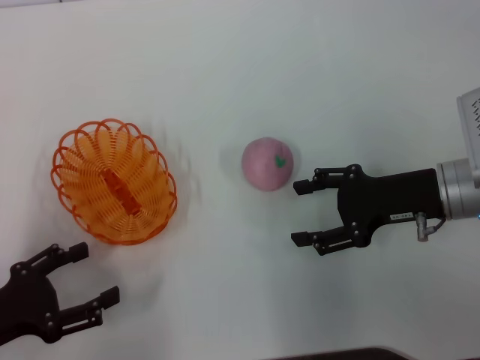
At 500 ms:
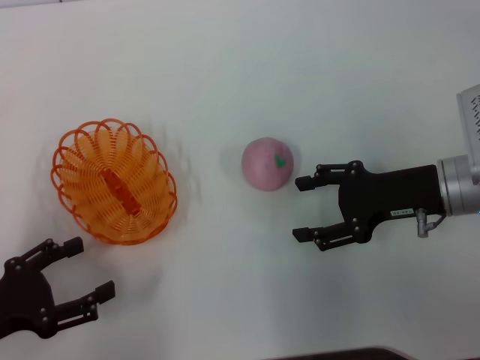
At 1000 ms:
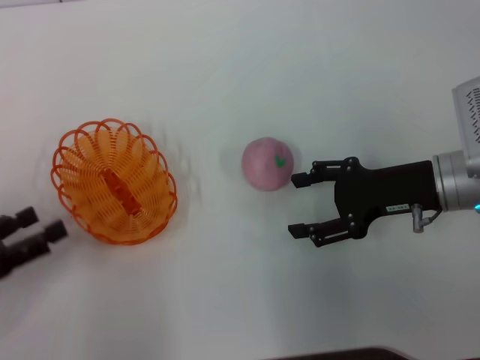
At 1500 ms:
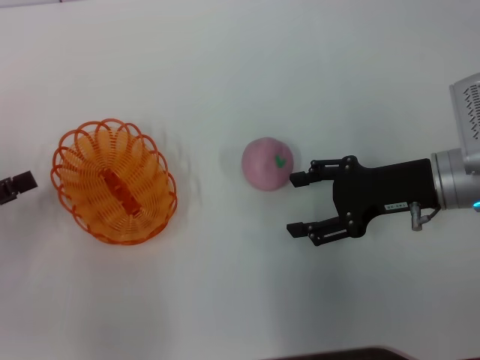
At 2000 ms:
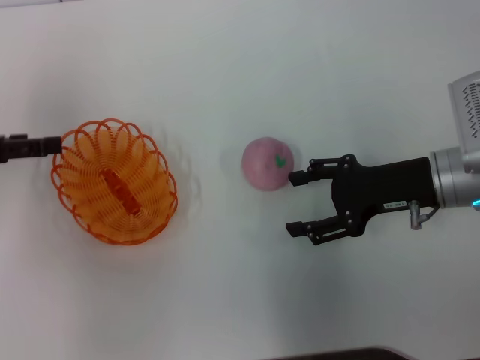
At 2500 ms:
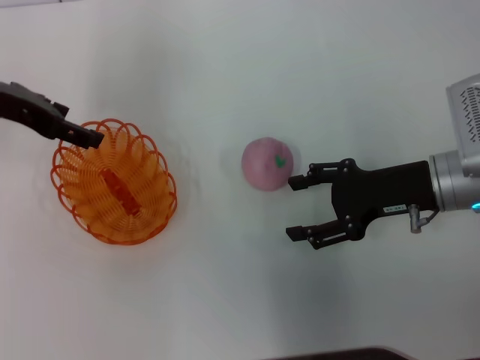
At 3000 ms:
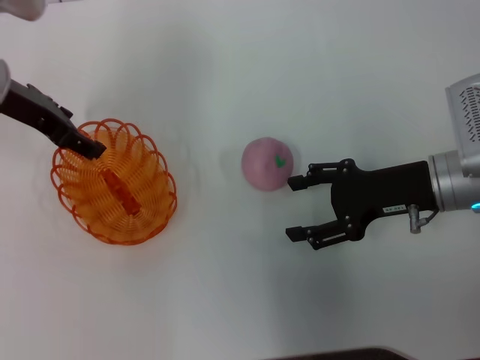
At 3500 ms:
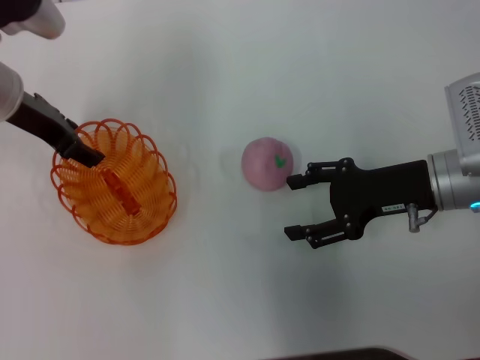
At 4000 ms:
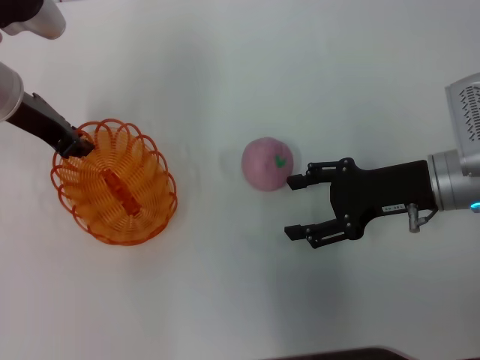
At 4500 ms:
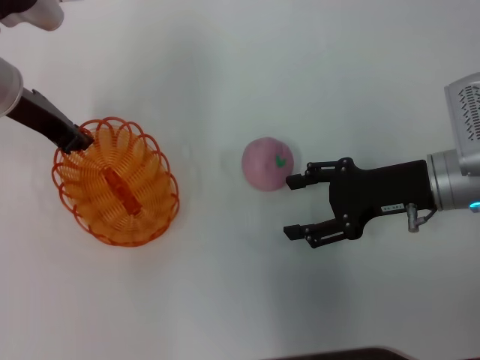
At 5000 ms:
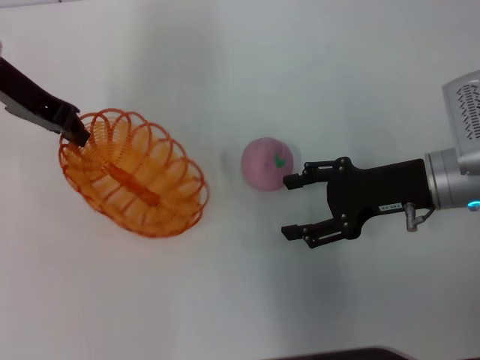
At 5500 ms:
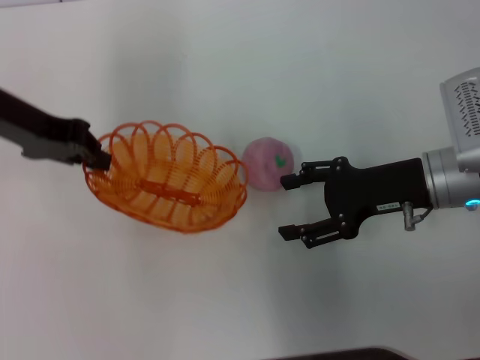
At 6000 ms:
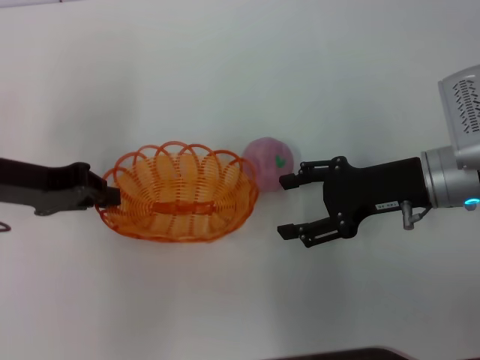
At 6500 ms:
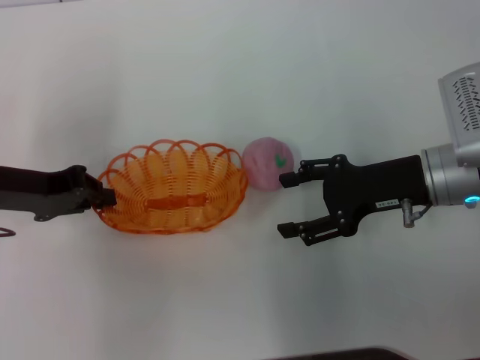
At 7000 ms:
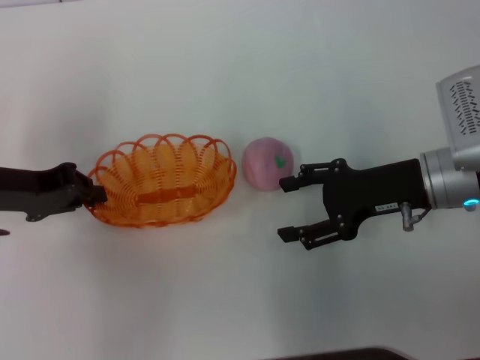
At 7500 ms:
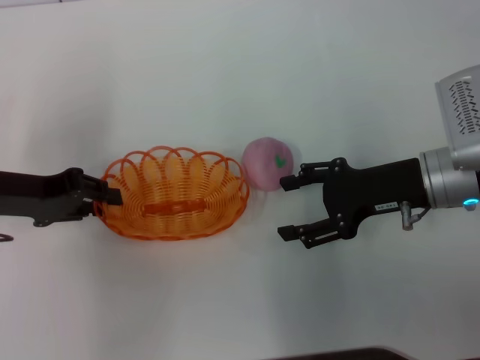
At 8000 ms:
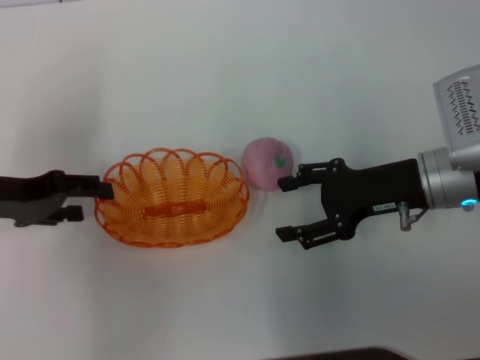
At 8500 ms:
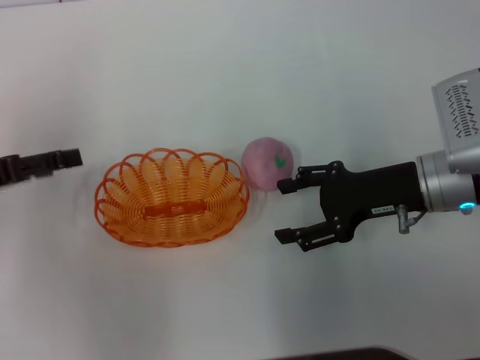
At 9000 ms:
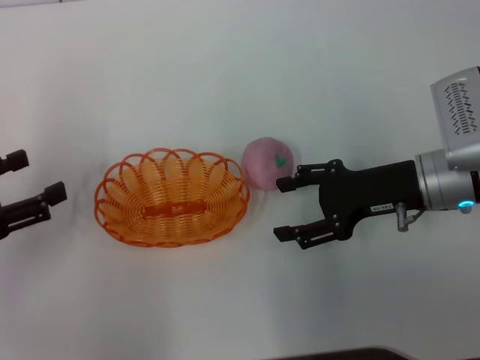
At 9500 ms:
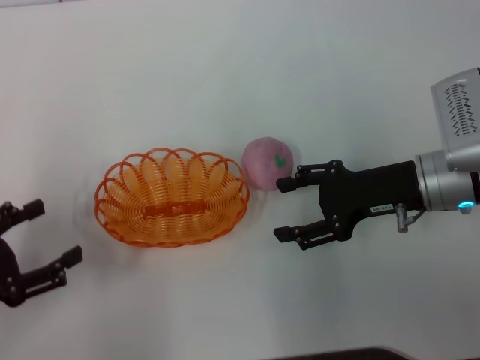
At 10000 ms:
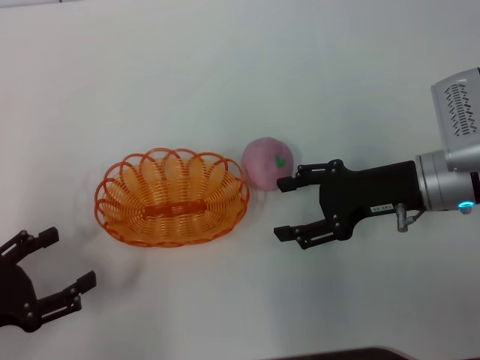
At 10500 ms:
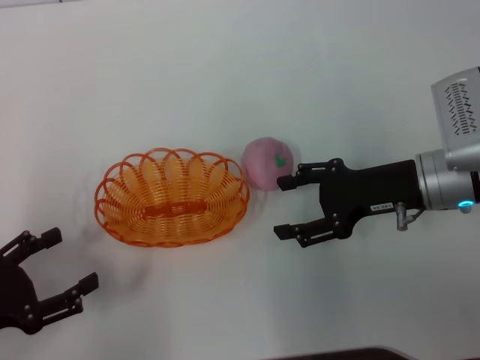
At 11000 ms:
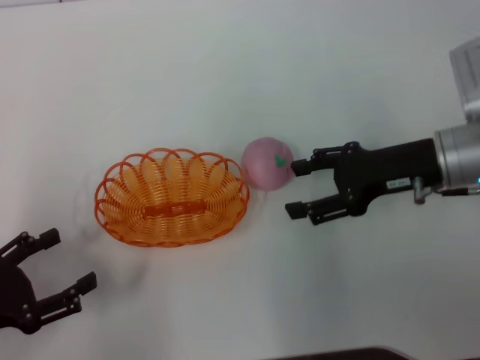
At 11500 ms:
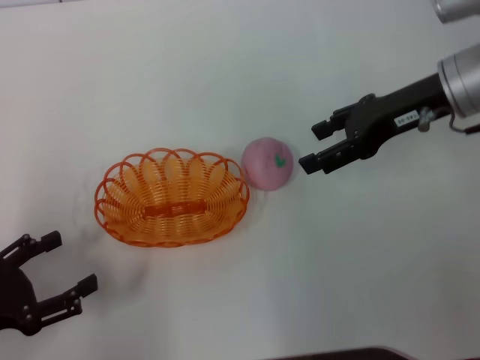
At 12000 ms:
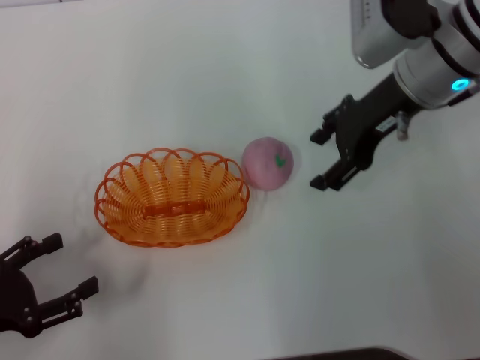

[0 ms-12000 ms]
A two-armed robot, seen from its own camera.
Step, 0 ms to 5000 ms: Pick up the basket with the left gripper.
Step, 5500 ms to 10000 ms: Place the basket in the center of view with the left gripper.
0 ms to 2000 ms: The left gripper shifts some 20 cm forward and upward.
2000 ms to 4000 ms: The left gripper travels to the right and forward by about 15 cm, and closes its fingers.
4000 ms to 6000 ms: The left gripper is displaced backward by about 10 cm, and closes up.
6000 ms to 8000 ms: The left gripper opens its fingers.
8000 ms to 10000 ms: The left gripper moves backward and downward, about 15 cm.
10000 ms to 12000 ms: The right gripper heads upward and forward, covering some 15 cm.

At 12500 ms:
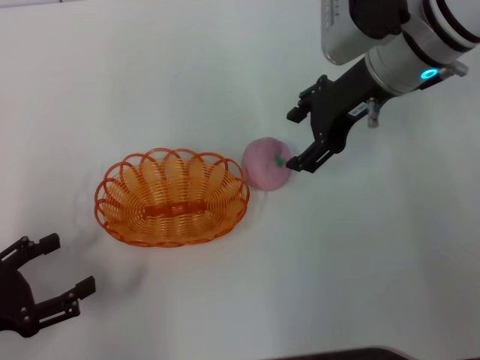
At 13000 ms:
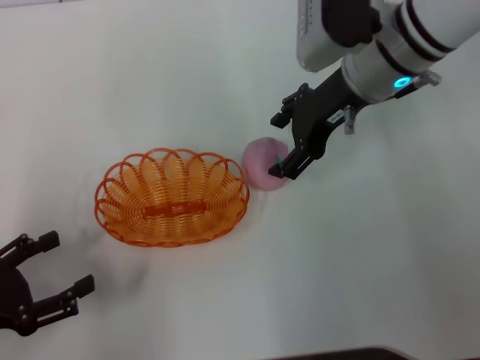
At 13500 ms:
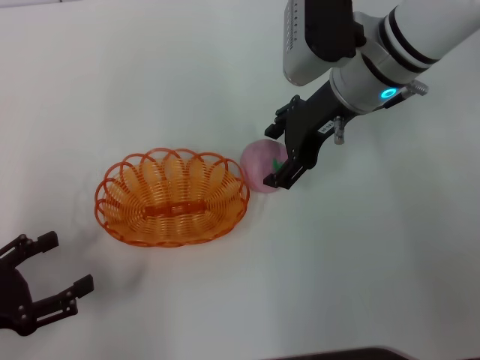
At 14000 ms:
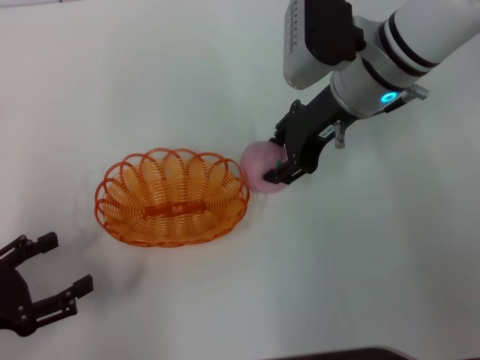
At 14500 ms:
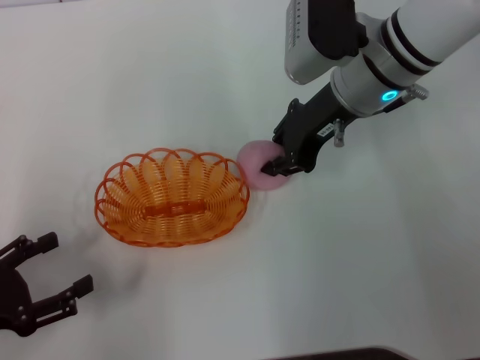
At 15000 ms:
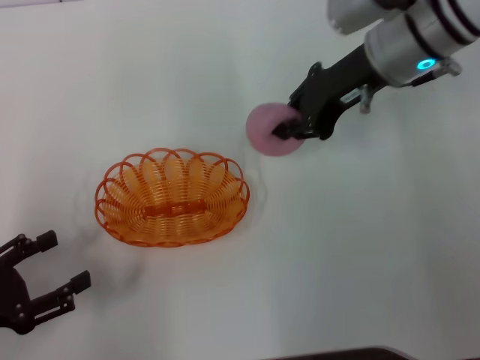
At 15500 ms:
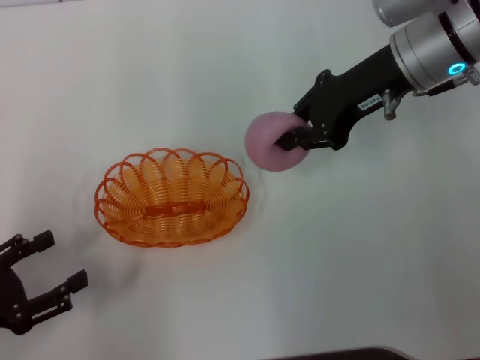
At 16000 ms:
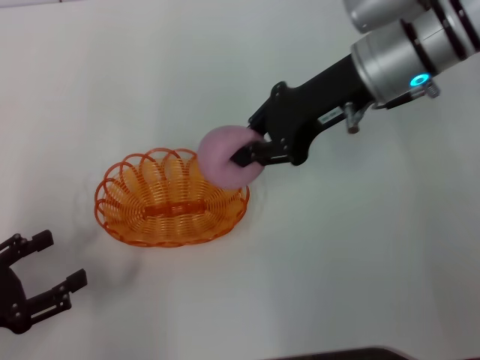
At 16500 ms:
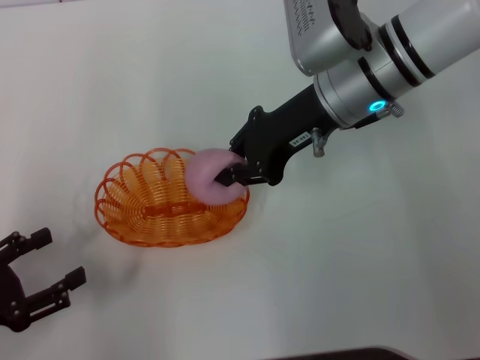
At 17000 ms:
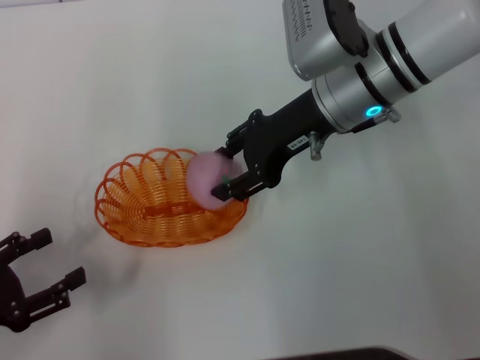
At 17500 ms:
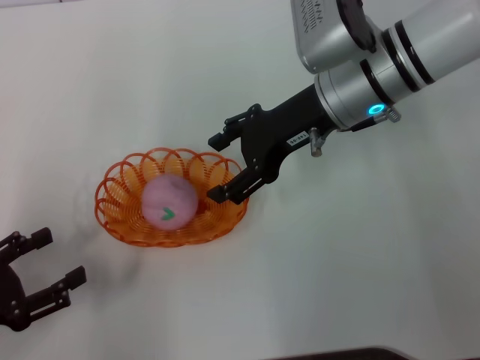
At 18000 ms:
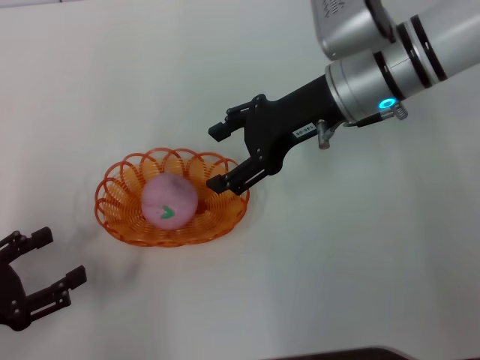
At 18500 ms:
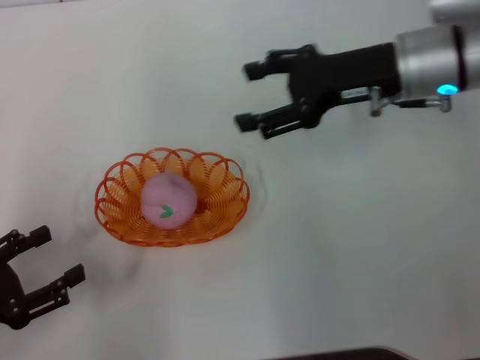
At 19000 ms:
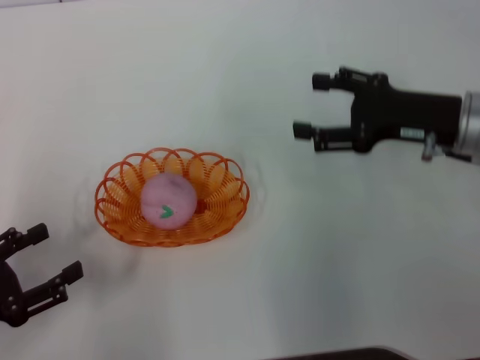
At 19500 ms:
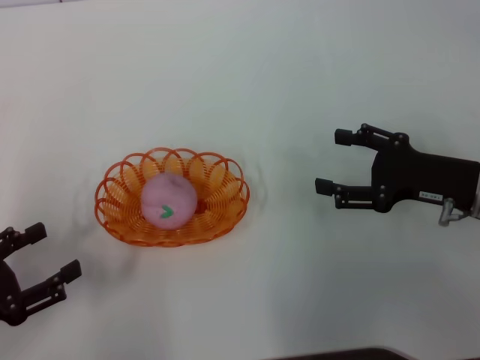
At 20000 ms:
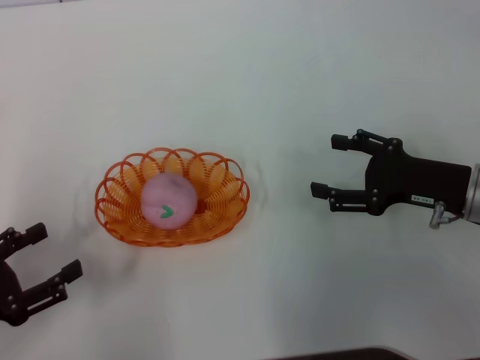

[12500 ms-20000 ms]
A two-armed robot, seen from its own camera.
Step, 12500 ms to 15000 ms: Pick up the peach with the right gripper.
Step, 15500 ms to 18500 ms: Place the peach into the basket with the right gripper.
12500 ms to 14500 ms: The right gripper closes.
16500 ms to 18000 ms: The right gripper opens.
18000 ms to 20000 ms: The right gripper moves to the right, backward and downward, roughly 20 cm.

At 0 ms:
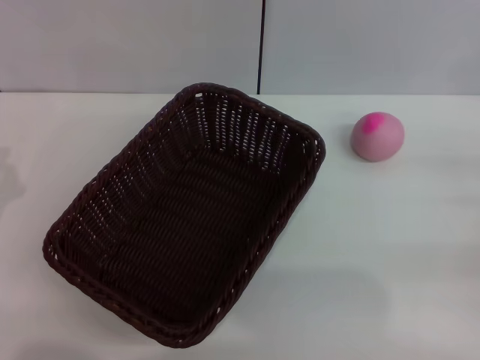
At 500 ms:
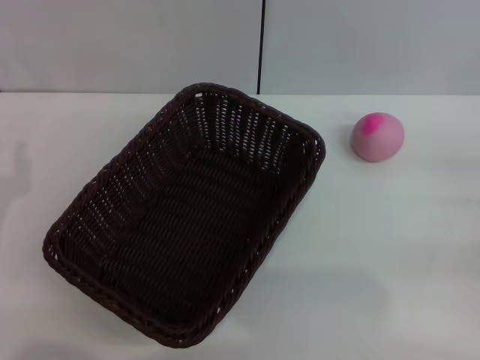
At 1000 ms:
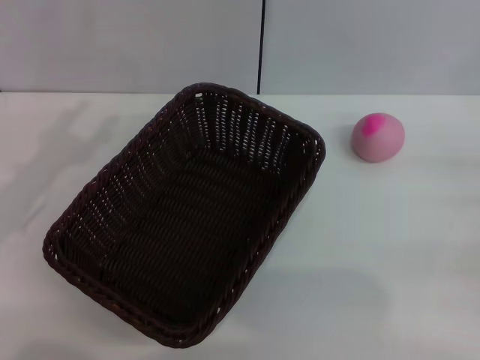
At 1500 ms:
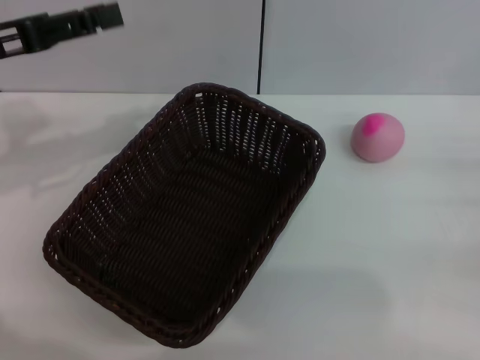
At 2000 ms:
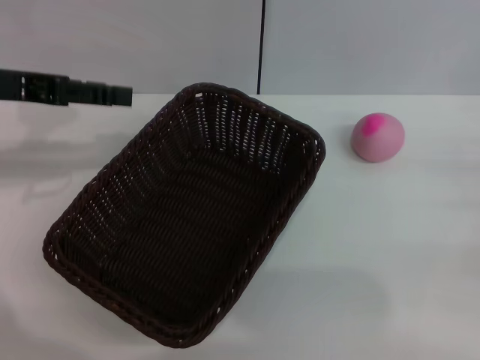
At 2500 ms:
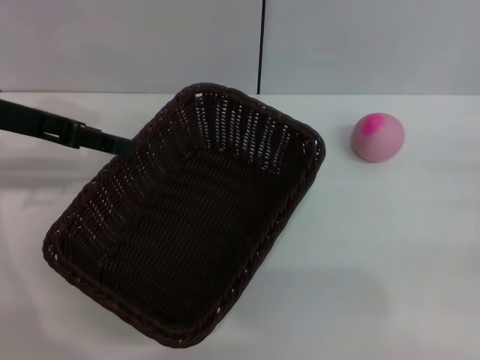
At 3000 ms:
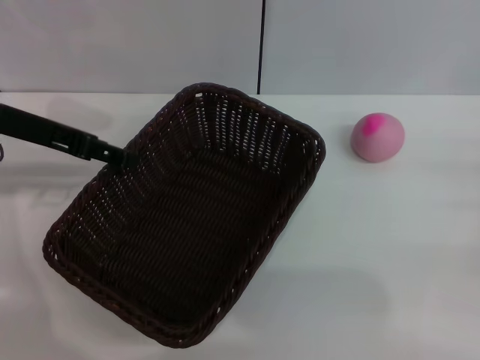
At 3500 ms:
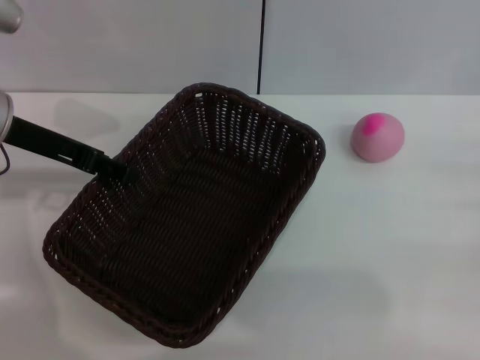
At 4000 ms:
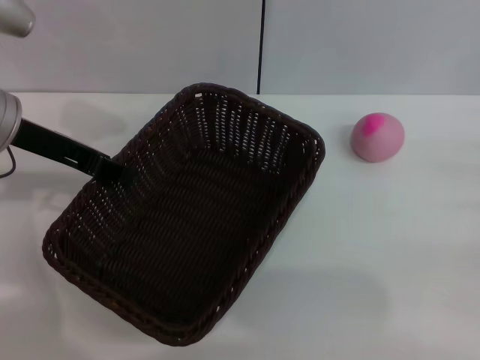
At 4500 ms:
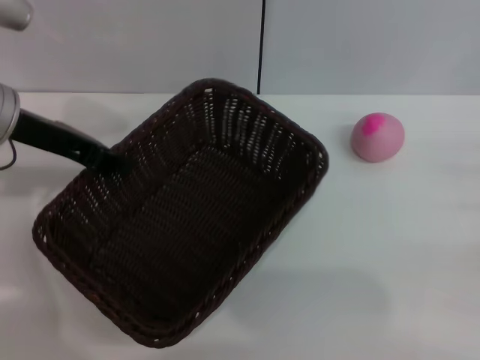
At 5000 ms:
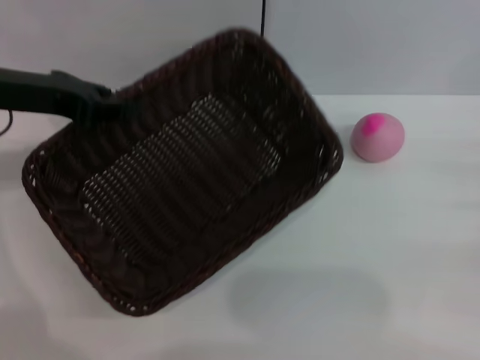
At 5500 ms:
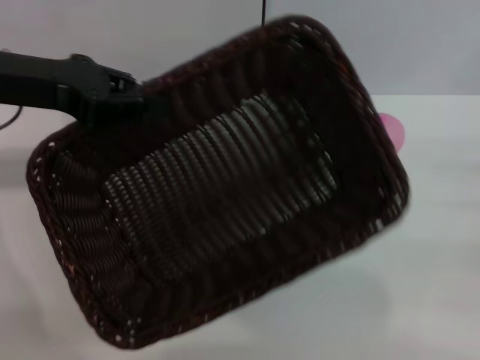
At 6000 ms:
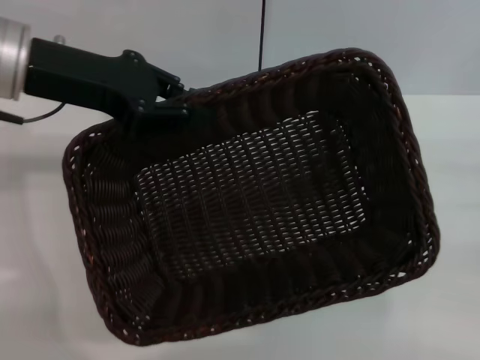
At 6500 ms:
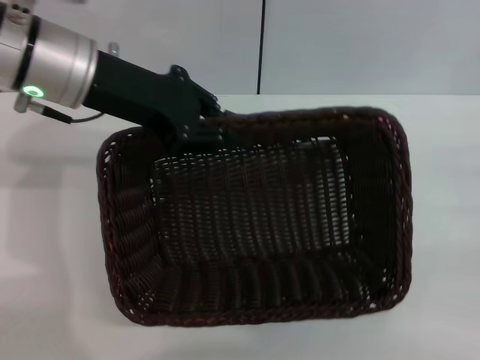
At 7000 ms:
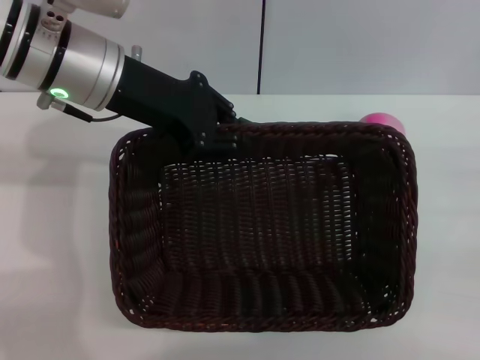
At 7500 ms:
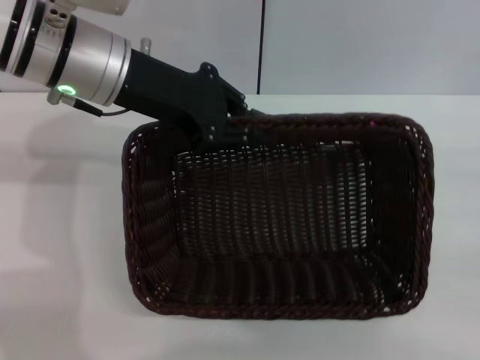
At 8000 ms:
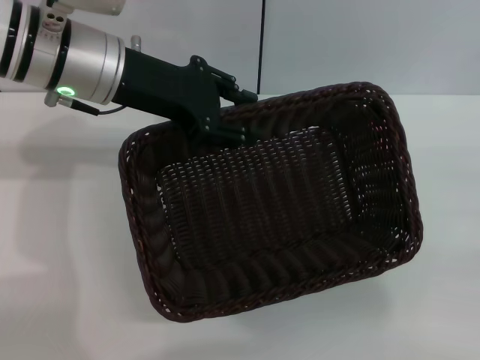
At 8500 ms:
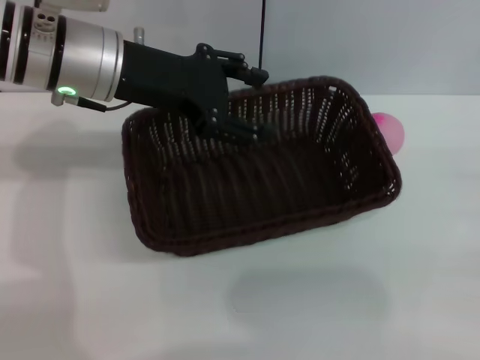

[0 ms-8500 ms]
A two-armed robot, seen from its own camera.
Step, 0 ms to 5000 ms: Pick up the dark basket with the left gripper.
0 ms to 2000 ms: The left gripper shifts roughly 20 cm upward and forward, and opens.
2000 ms to 4000 ms: The left gripper changes place by roughly 5 cm, and closes up.
4000 ms to 6500 ms: The left gripper goes some 5 cm to the right, and closes.
6500 ms to 8500 ms: The left gripper opens its fingers.
